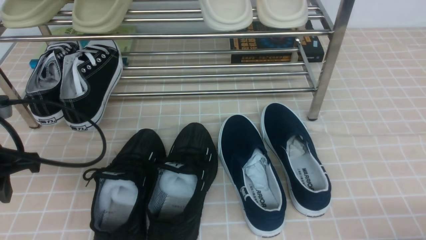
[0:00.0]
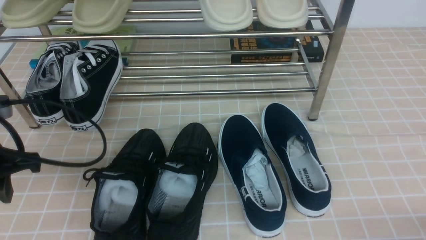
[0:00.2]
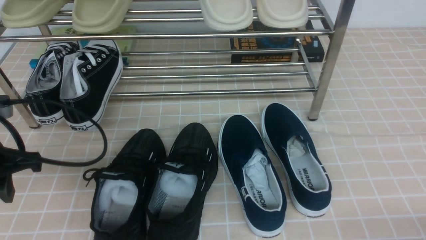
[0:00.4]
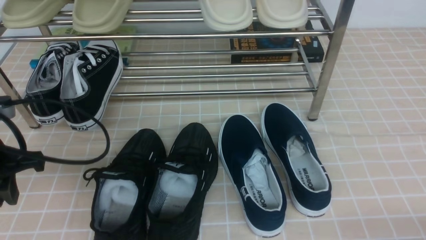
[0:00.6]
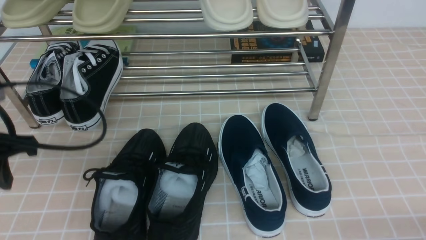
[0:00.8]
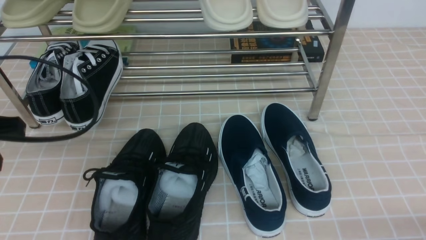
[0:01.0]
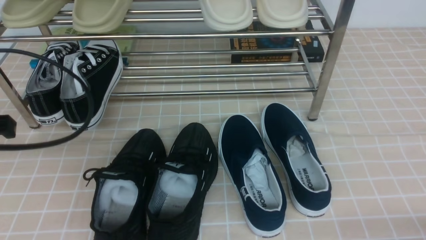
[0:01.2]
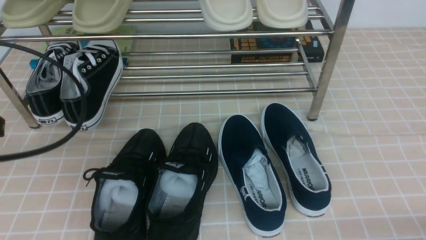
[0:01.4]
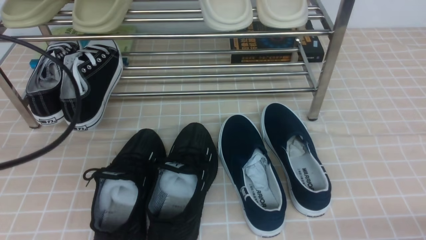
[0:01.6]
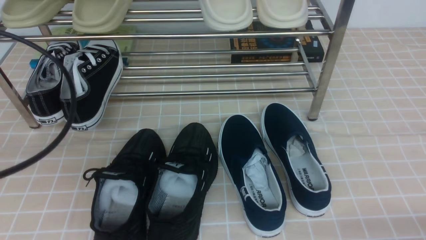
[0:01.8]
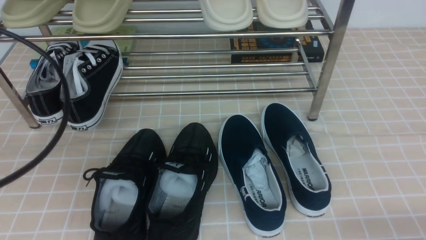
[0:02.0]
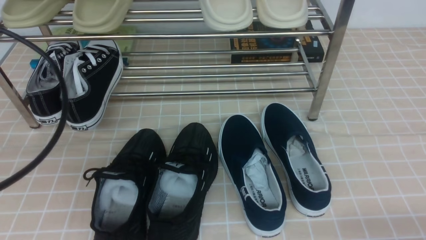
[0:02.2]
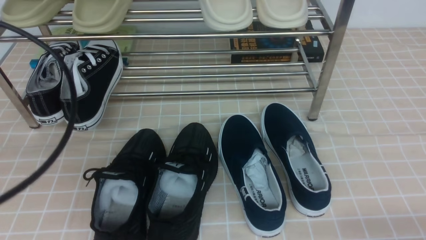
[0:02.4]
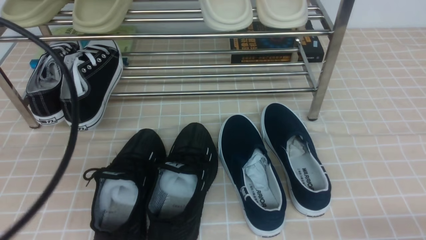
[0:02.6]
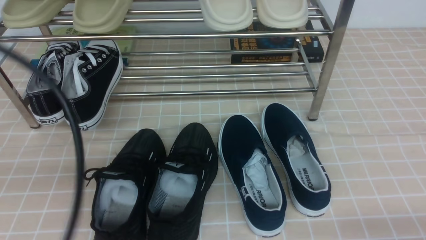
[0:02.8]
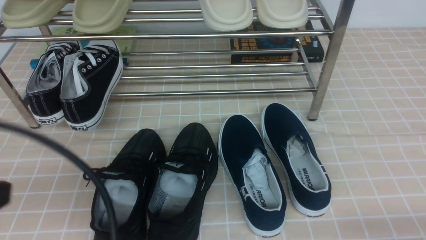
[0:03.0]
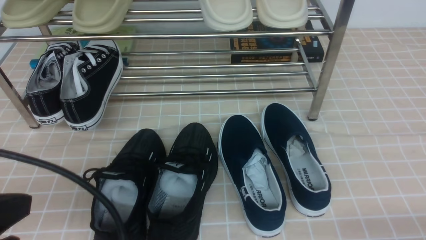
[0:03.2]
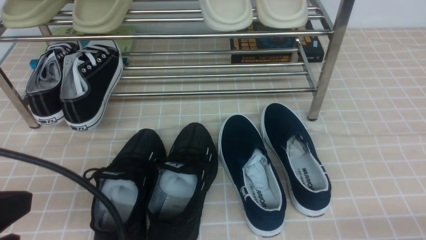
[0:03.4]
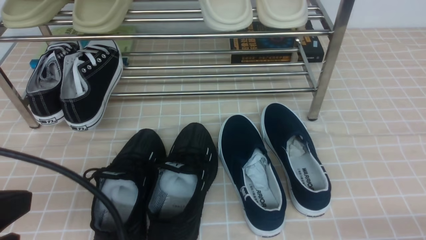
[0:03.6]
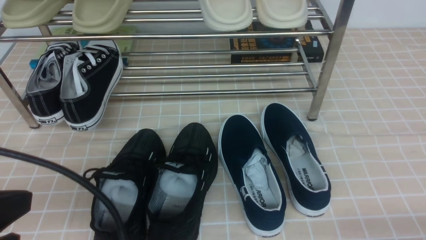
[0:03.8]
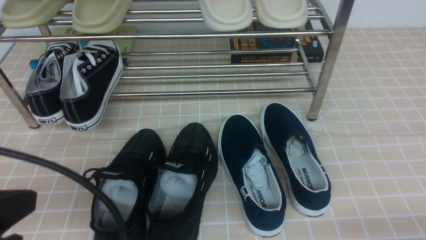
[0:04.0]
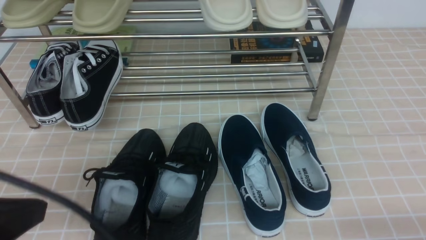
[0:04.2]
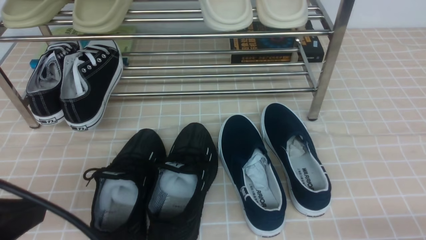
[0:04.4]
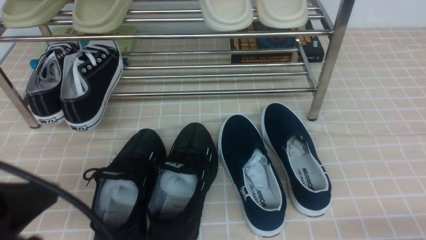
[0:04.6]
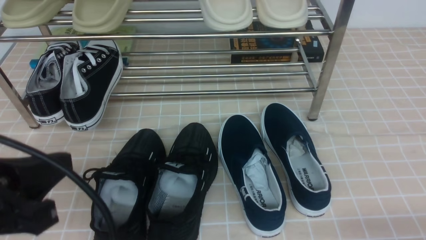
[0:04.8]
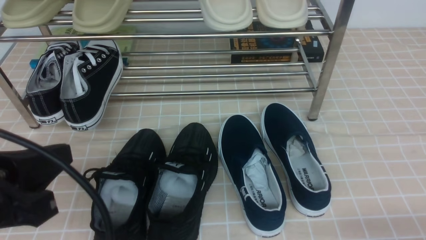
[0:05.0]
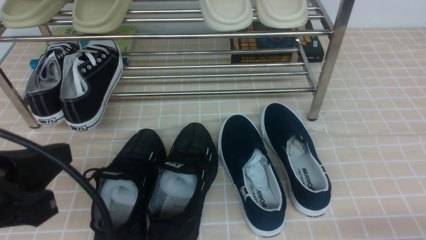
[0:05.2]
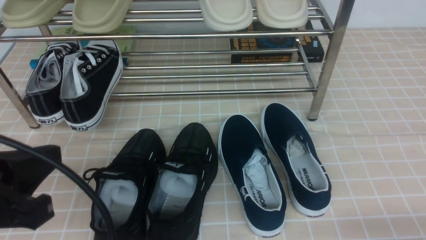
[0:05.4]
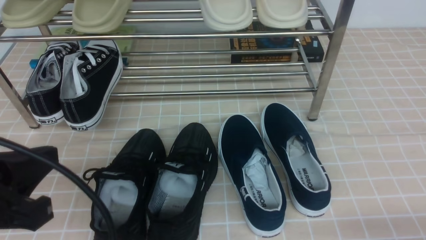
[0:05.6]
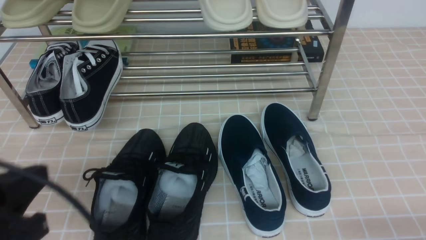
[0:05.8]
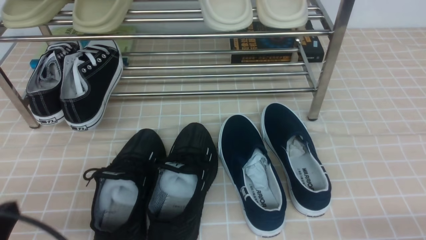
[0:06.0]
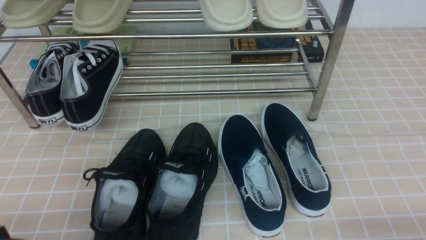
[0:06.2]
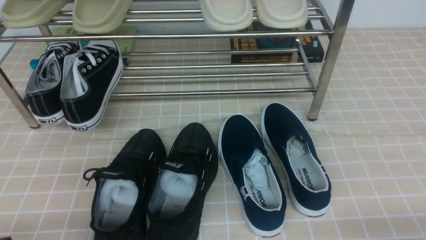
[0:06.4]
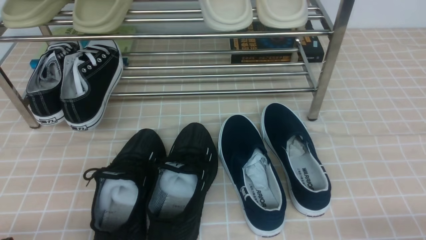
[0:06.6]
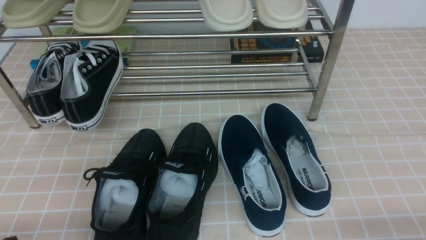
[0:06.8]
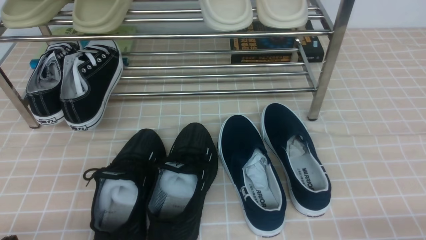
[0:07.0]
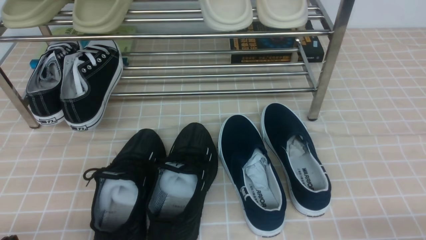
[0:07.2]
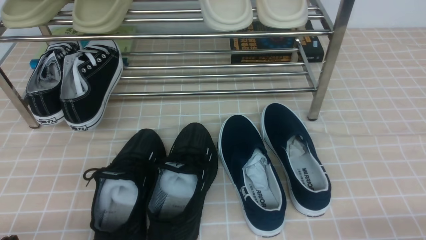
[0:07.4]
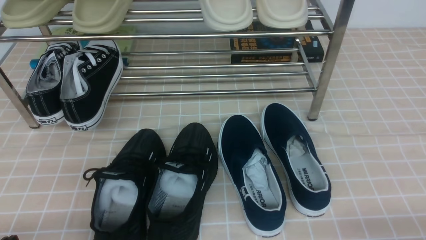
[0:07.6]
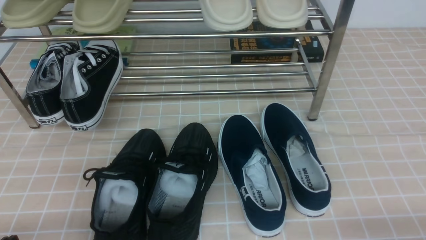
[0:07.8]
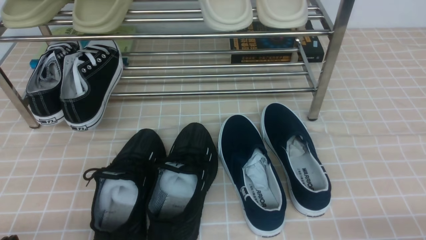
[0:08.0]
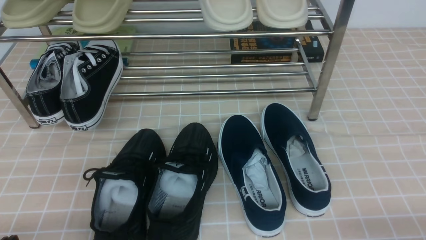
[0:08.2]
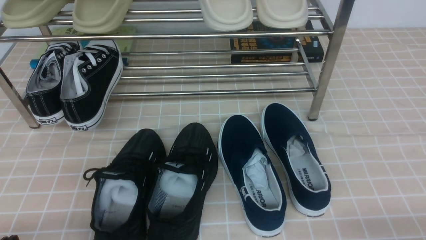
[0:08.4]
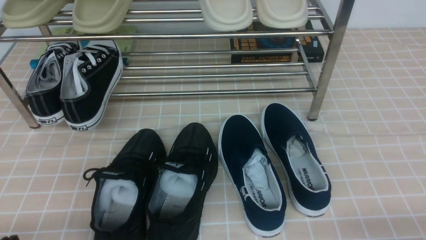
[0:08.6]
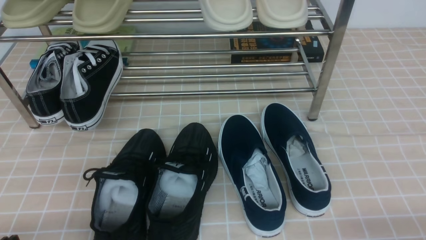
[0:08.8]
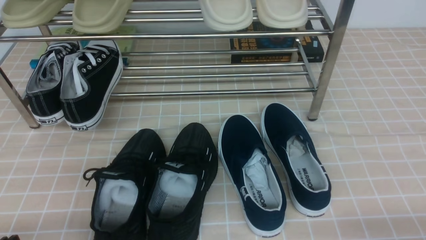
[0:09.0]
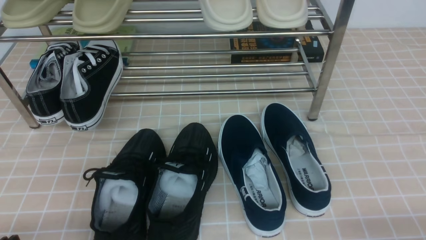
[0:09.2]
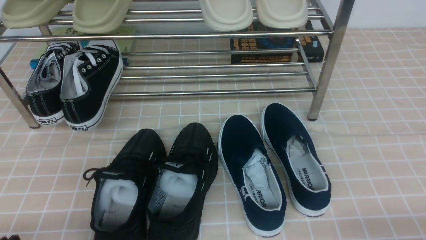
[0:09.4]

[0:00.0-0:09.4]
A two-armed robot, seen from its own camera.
0:00.0 to 0:01.6: The left gripper moves upward and backward, approximately 10 cm.
0:01.6 to 0:03.2: The left gripper goes about 10 cm backward, and closes up.
0:03.2 to 0:04.8: The grippers stay close to where they were, moving slightly.
0:04.8 to 0:06.2: The left gripper travels downward by some 10 cm.
0:07.8 to 0:09.4: Neither gripper changes place.
